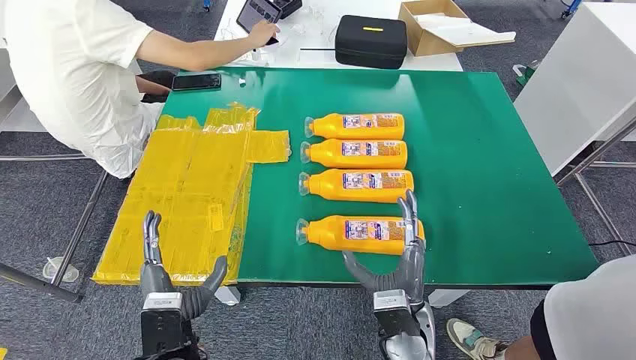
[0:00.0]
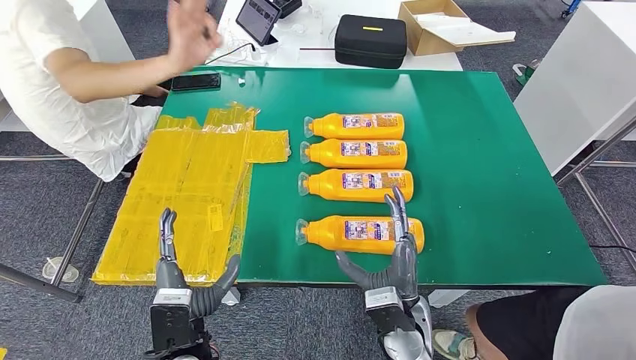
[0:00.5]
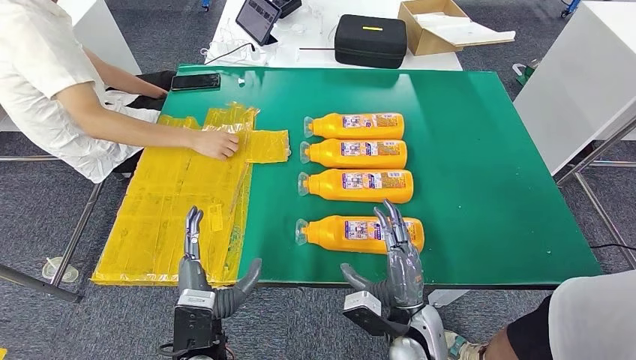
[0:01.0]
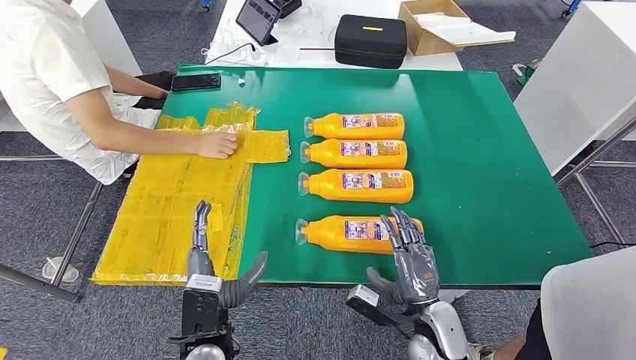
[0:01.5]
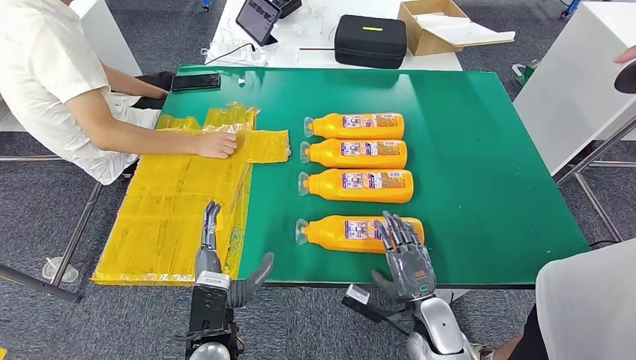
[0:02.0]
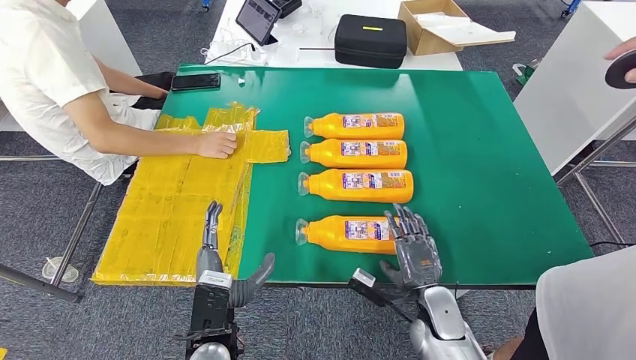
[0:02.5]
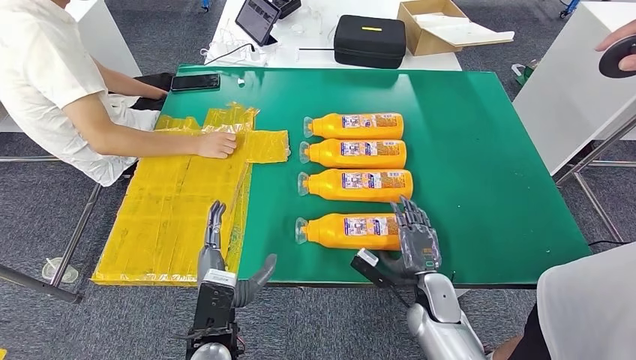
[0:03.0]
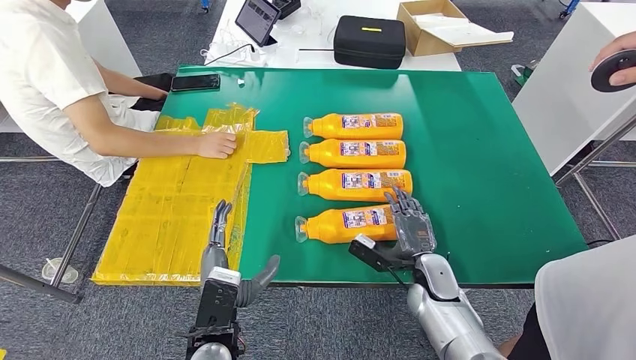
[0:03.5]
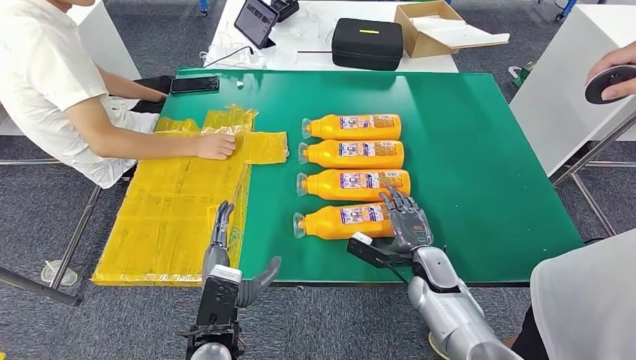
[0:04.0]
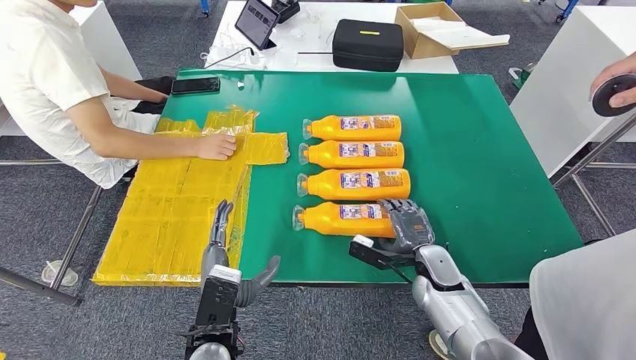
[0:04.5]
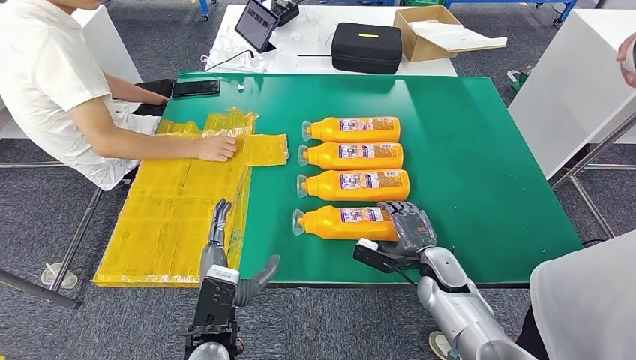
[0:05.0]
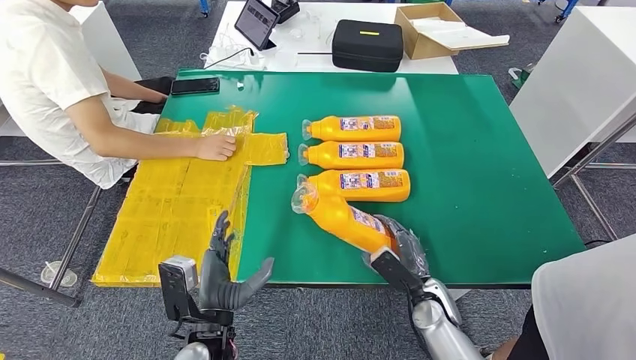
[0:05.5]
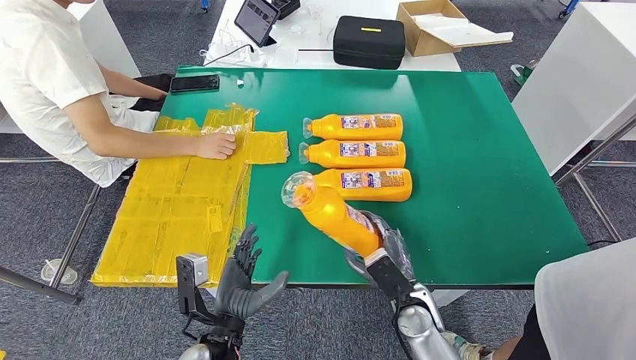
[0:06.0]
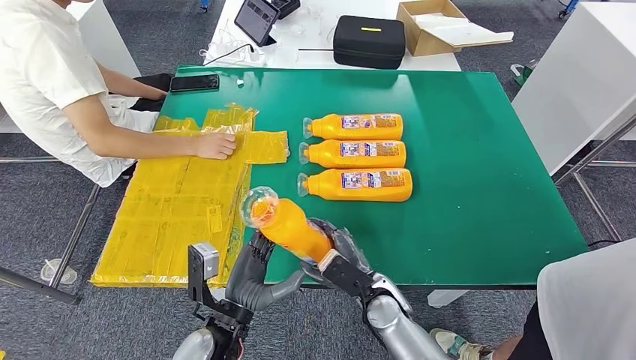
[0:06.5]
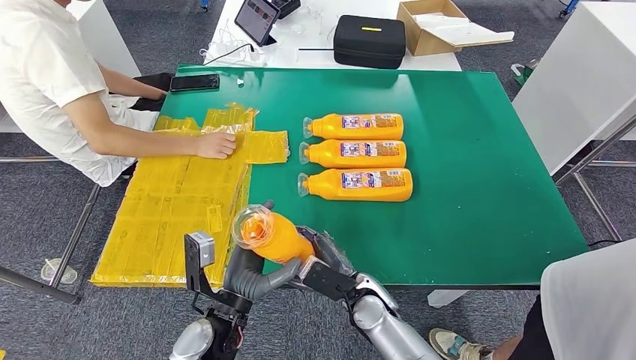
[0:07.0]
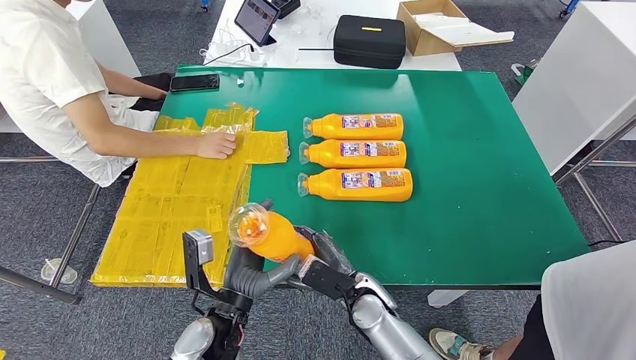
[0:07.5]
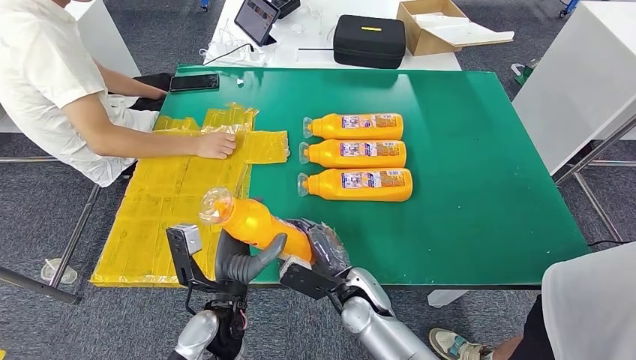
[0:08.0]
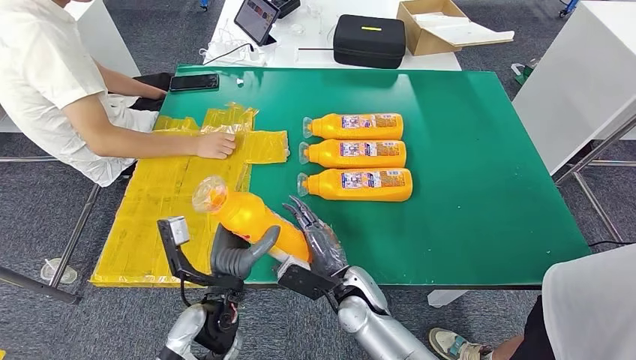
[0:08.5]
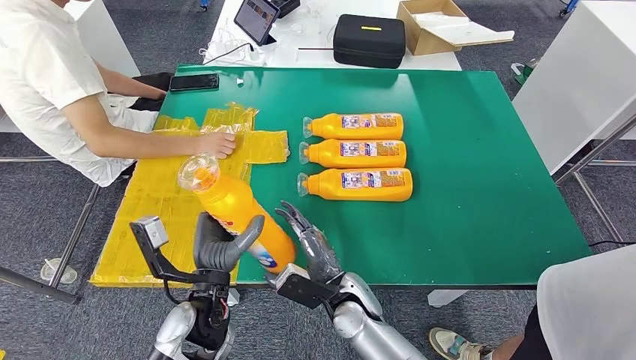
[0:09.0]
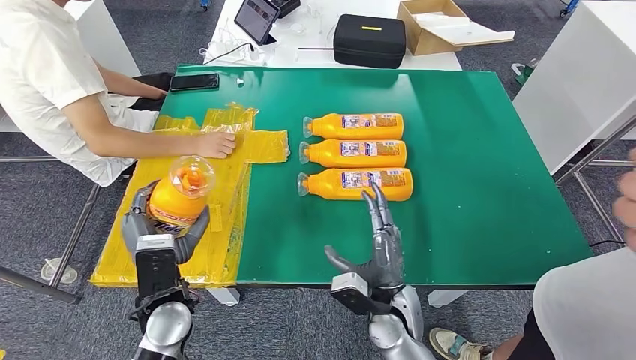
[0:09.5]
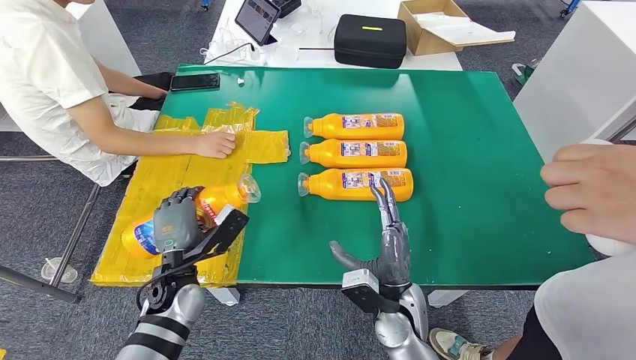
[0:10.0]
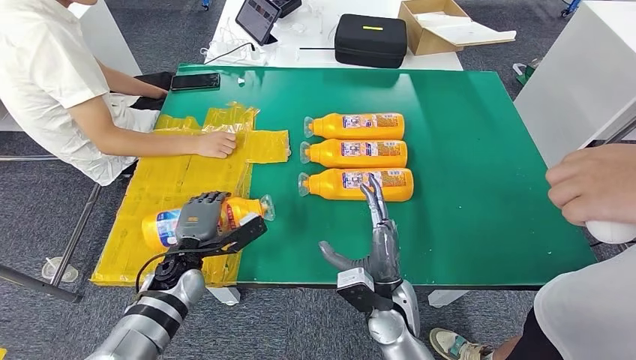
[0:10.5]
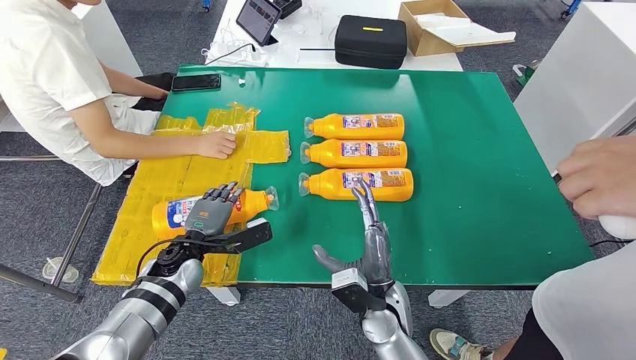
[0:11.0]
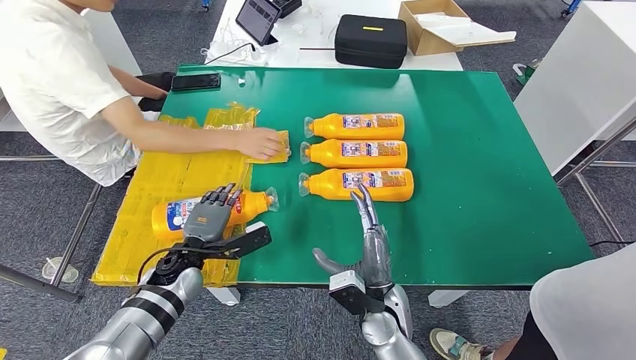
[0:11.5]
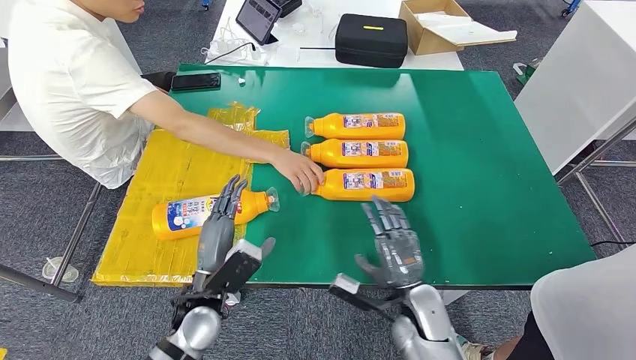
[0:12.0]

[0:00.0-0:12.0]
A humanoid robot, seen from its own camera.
Step, 0:00.0 to 0:07.0: Take the fast-moving consumer goods bottle from the table.
Step, 0:07.5 to 0:11.0: Flip the fast-moving consumer goods bottle to the front side.
0:02.0 to 0:04.0: The right hand moves forward, roughly 10 cm.
0:04.0 to 0:06.0: The right hand heads backward and to the left, covering approximately 10 cm.
0:06.0 to 0:08.0: The right hand travels to the left by approximately 10 cm. Meanwhile the left hand moves about 5 cm.
0:08.0 to 0:10.0: The left hand moves to the left and forward, approximately 10 cm, while the right hand is displaced to the right by some 5 cm.

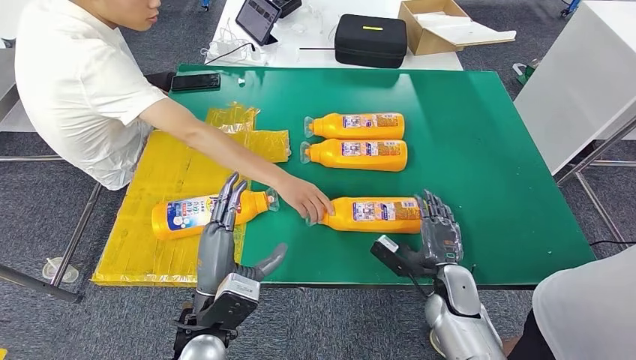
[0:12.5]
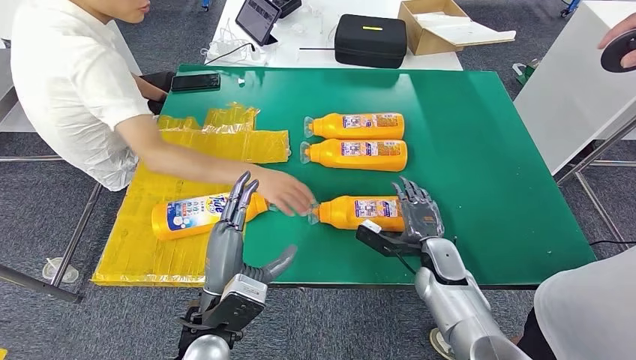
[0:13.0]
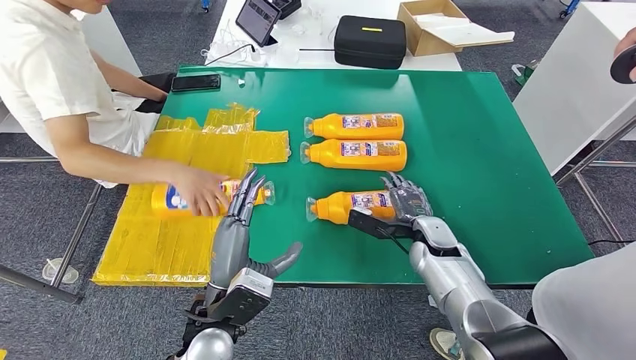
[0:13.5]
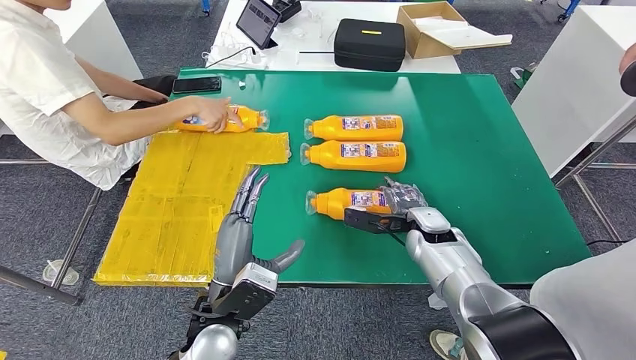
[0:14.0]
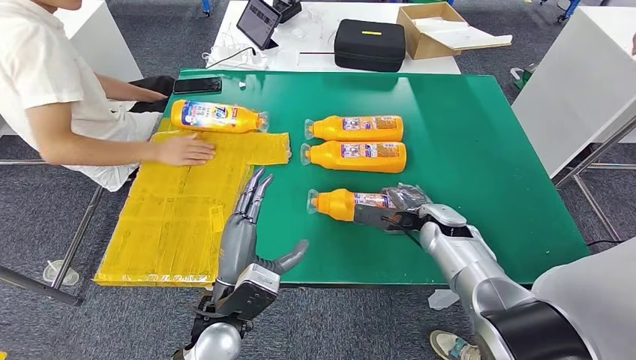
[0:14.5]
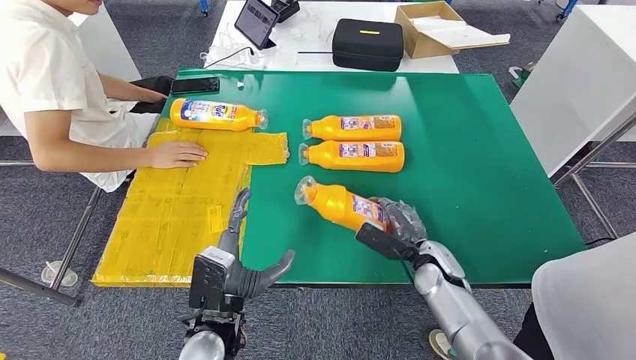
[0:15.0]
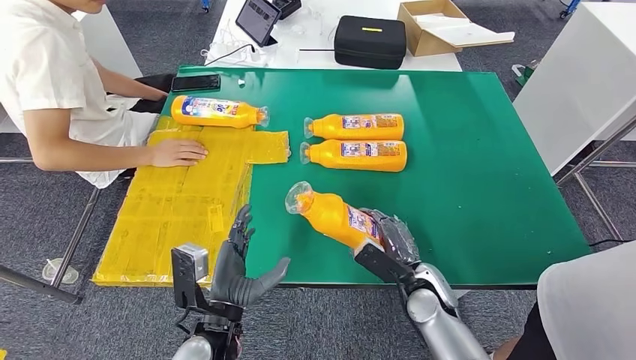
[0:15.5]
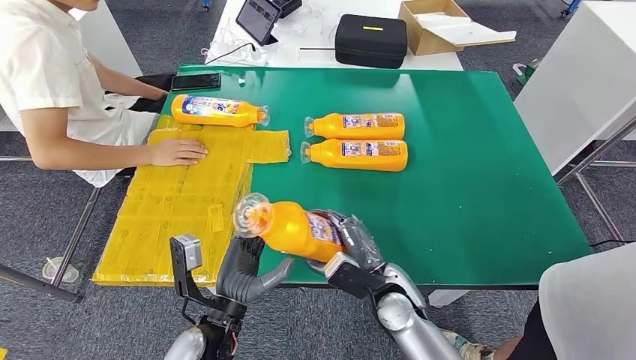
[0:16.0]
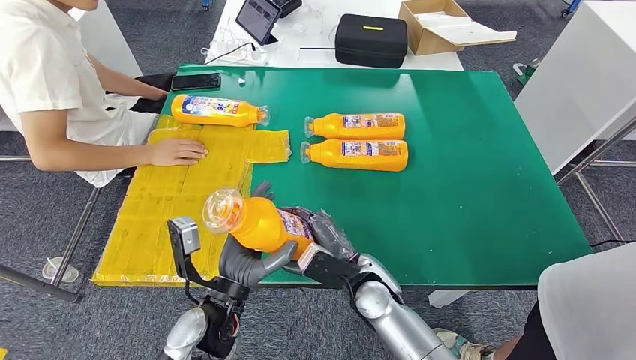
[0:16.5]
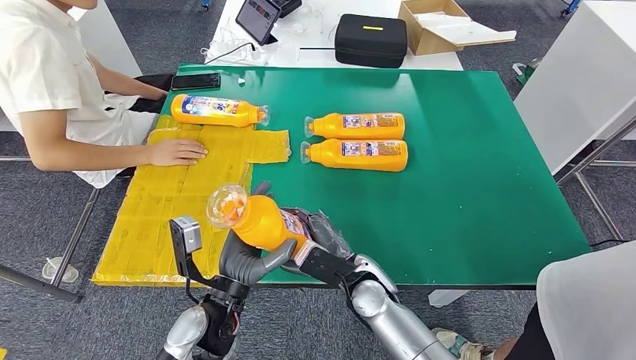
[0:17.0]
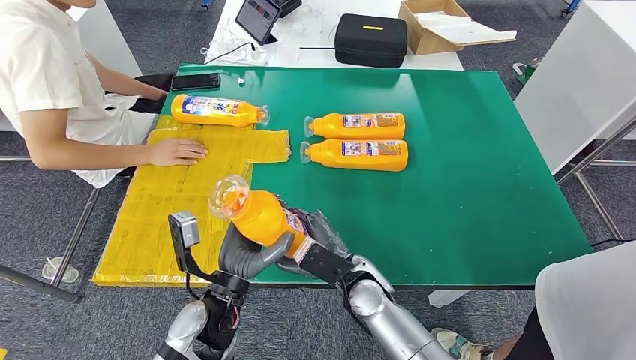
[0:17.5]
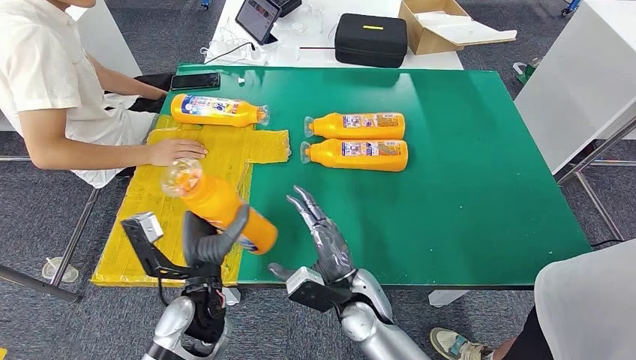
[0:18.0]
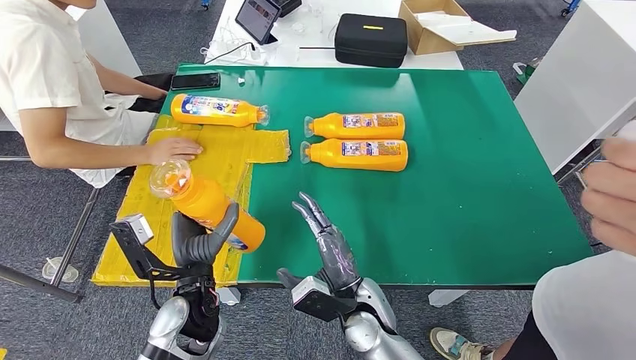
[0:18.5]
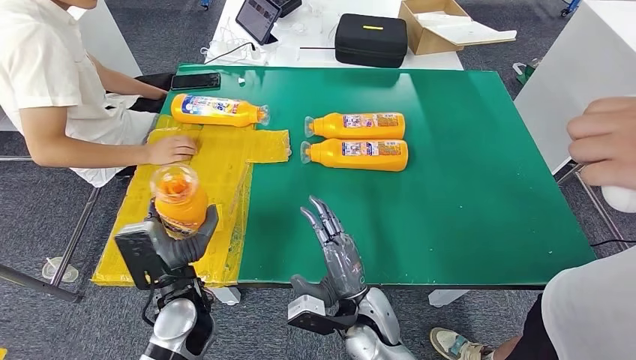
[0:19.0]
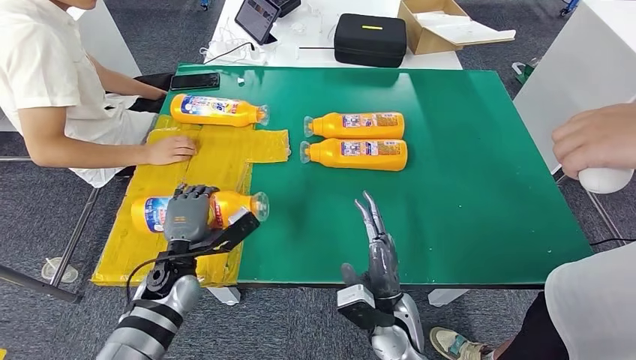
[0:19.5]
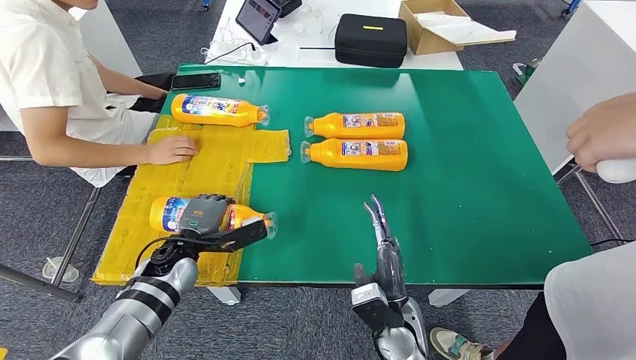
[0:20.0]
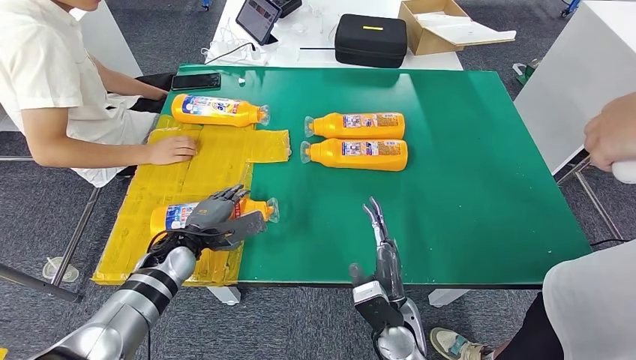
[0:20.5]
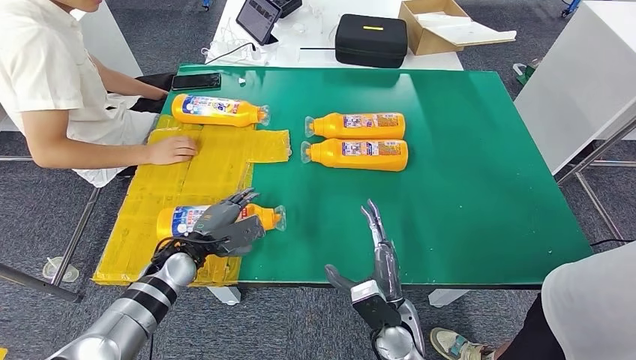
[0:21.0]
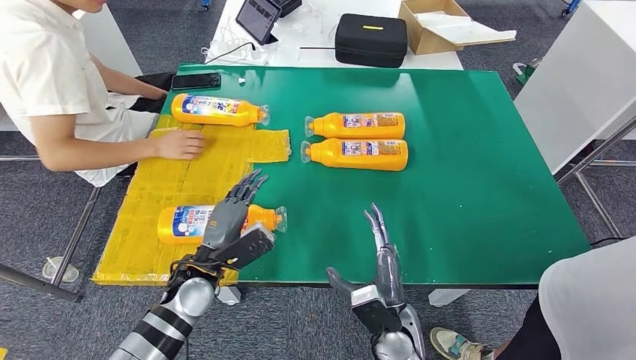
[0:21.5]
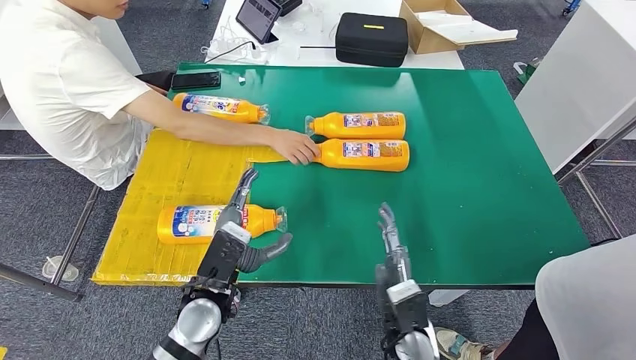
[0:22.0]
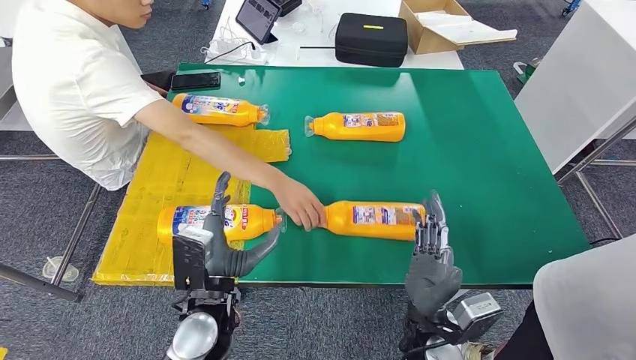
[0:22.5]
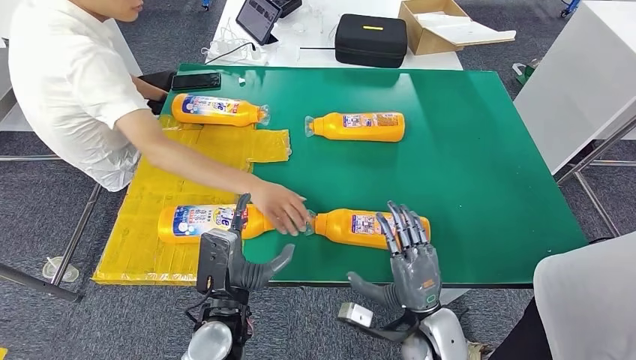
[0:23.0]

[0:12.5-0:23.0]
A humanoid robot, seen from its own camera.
Step, 0:12.5 to 0:16.5: Pick up the fast-moving consumer goods bottle from the table.
Step, 0:17.0 to 0:20.5: Flip the fast-moving consumer goods bottle to the front side.
0:16.5 to 0:19.0: The right hand goes some 5 cm backward, while the left hand ends up roughly 5 cm from where it was.
0:19.0 to 0:21.0: The right hand shifts by about 5 cm. The left hand goes roughly 10 cm forward and to the left.
